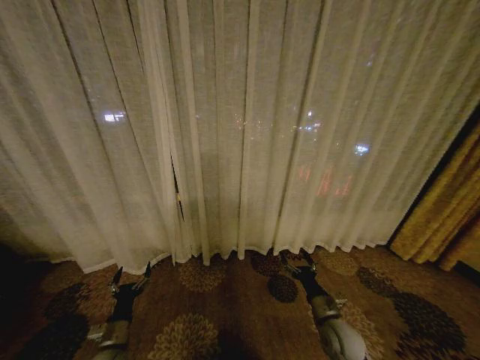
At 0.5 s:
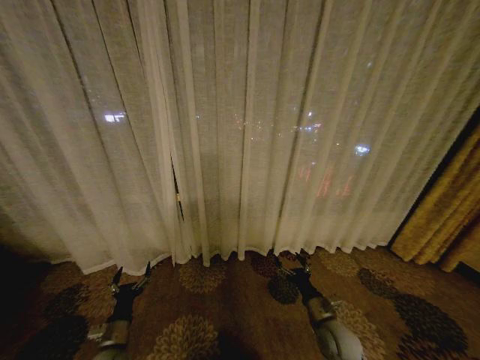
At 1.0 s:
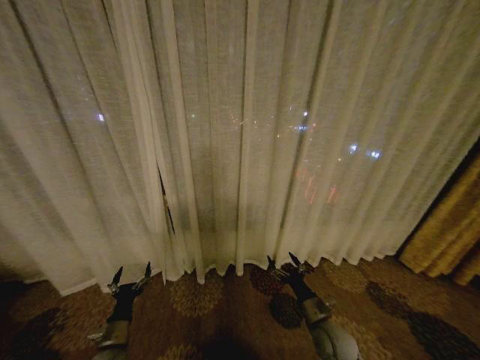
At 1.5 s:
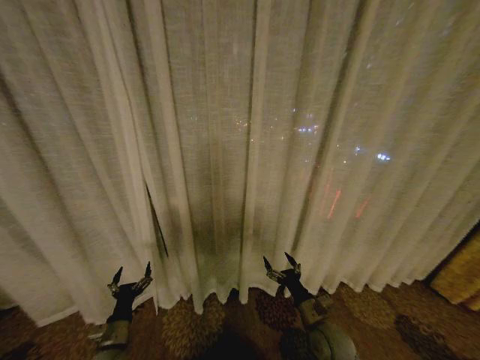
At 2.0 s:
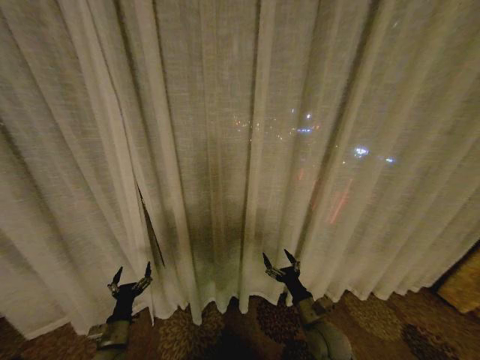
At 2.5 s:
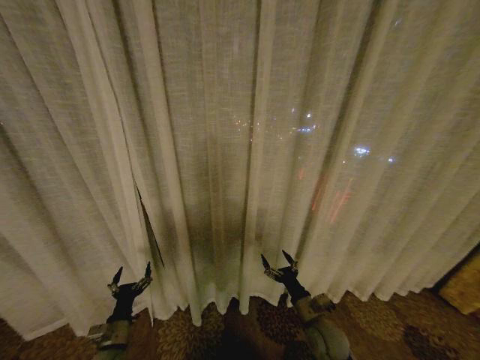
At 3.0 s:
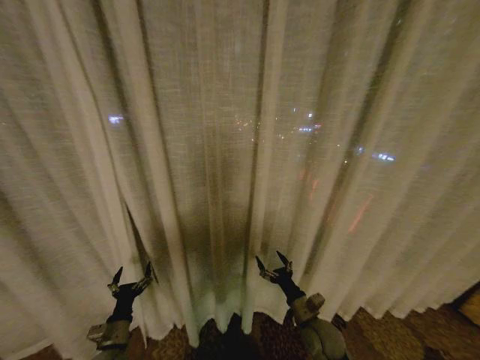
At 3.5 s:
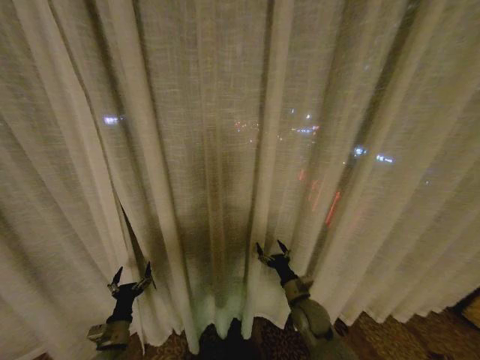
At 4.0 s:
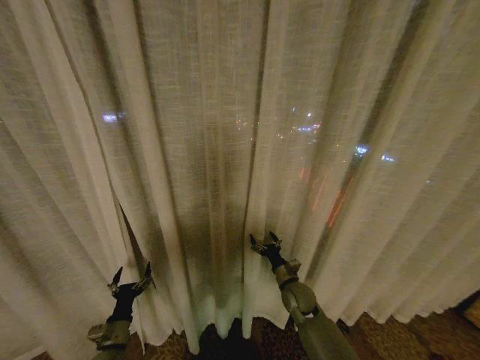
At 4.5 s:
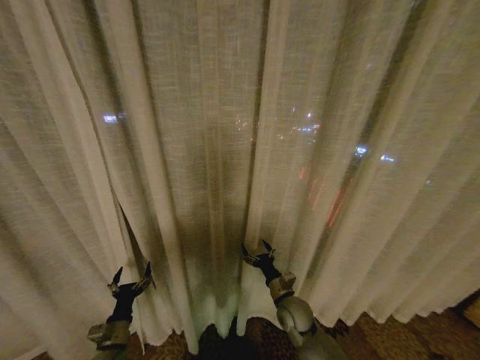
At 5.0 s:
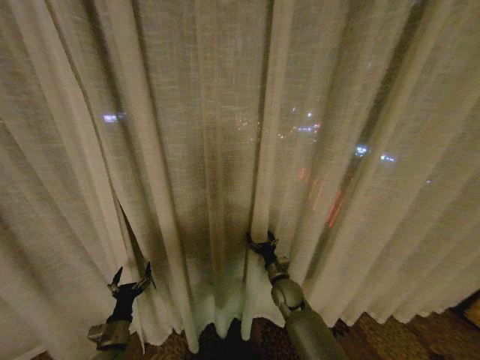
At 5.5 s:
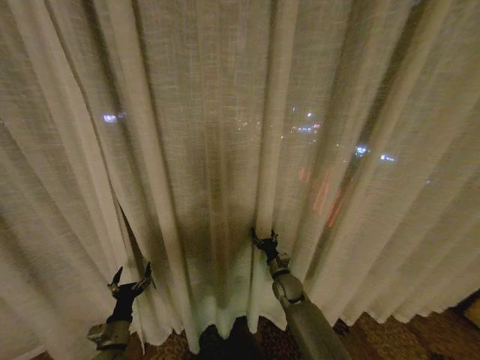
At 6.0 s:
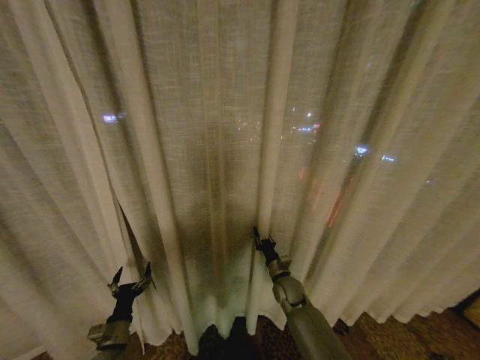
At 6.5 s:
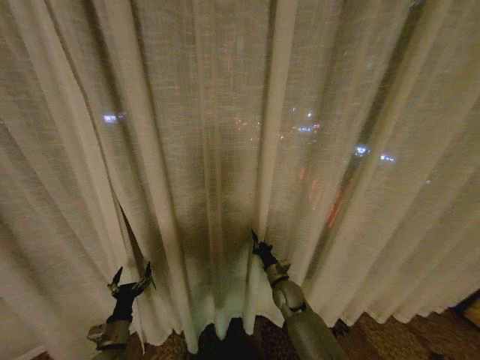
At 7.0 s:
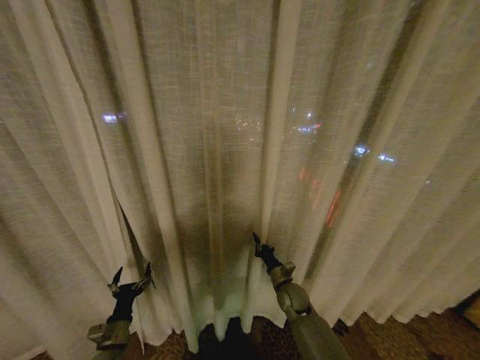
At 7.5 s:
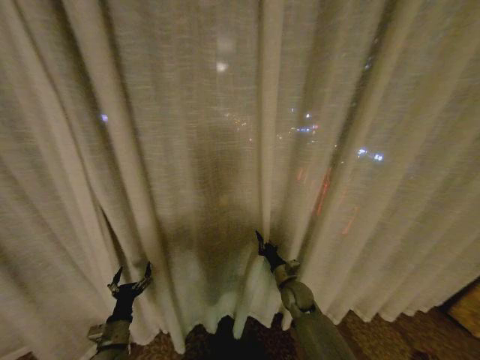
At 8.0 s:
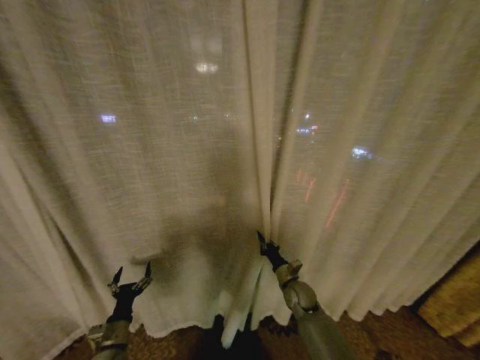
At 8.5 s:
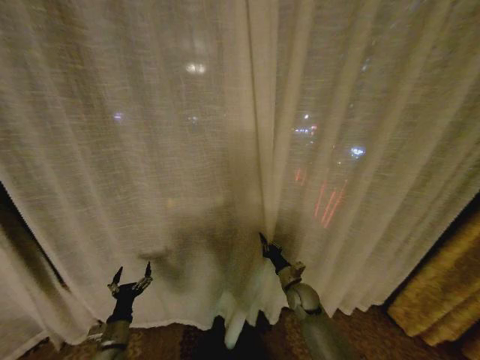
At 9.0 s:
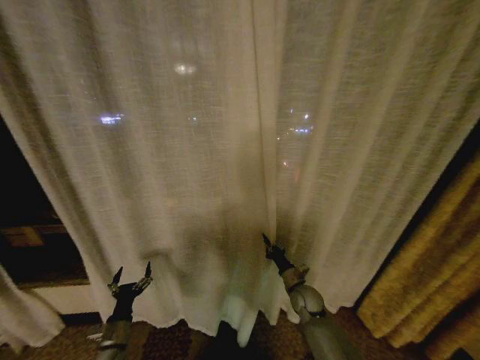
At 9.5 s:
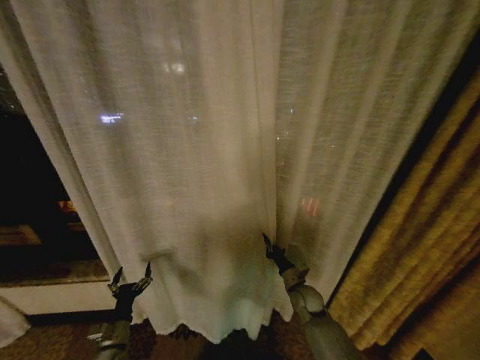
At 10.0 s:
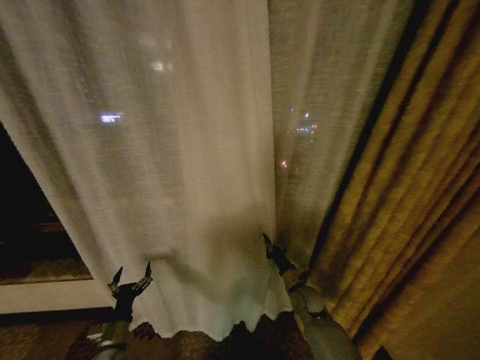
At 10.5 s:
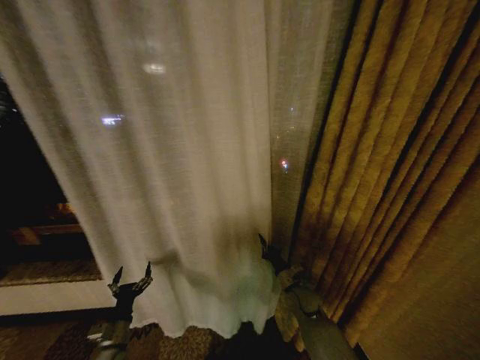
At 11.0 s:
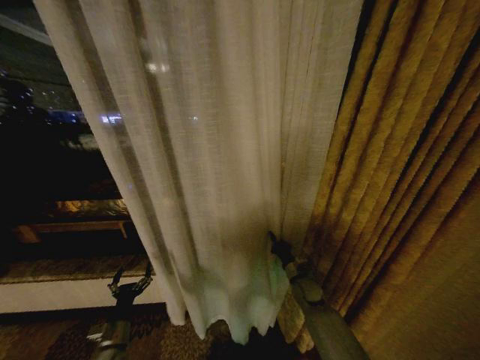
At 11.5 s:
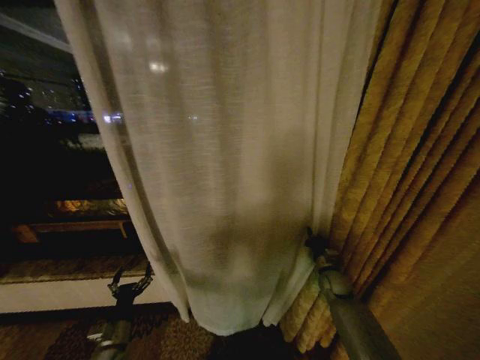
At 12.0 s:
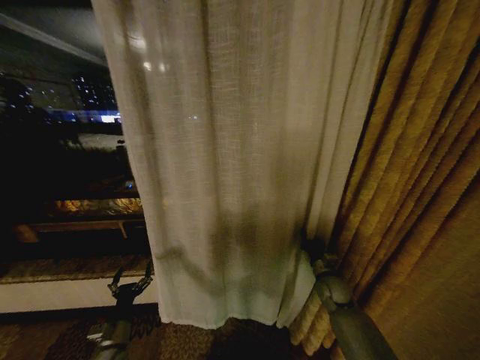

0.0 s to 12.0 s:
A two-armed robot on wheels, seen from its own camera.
Task of the whole recording: Open the curtains by pulling them apart, changing their state from closed to fully open.
2.0 to 4.0 s: The right gripper moves forward, about 10 cm.
4.0 to 6.0 s: The right gripper goes backward and returns, about 5 cm each way, and closes its fingers.
10.0 to 12.0 s: The right gripper shifts approximately 10 cm to the right.

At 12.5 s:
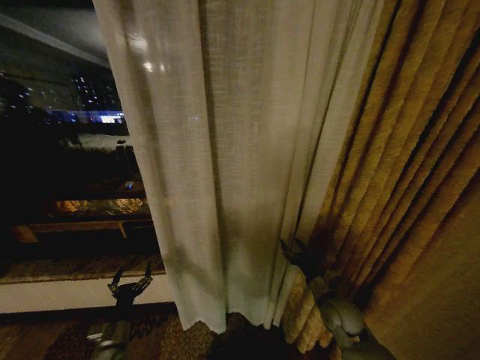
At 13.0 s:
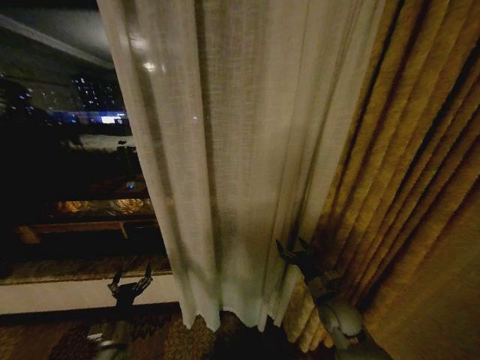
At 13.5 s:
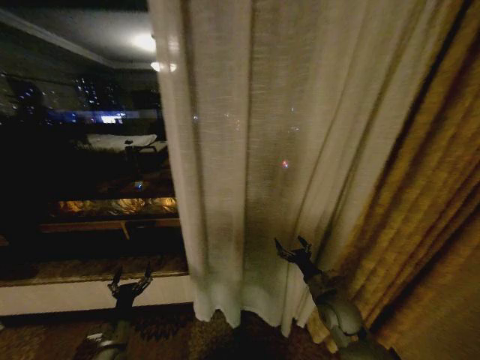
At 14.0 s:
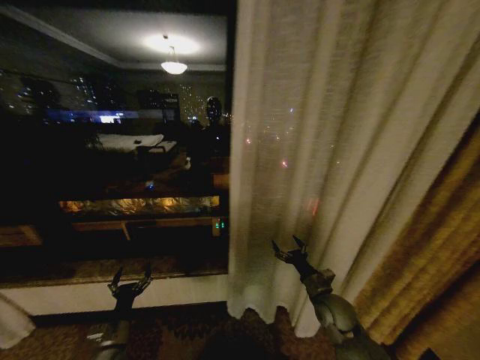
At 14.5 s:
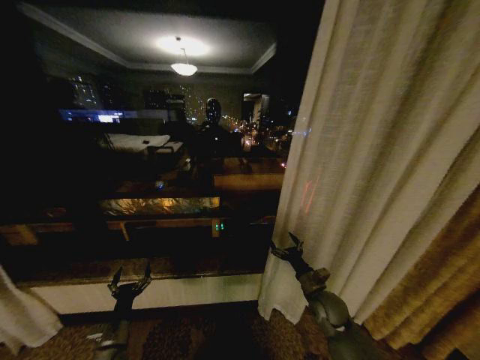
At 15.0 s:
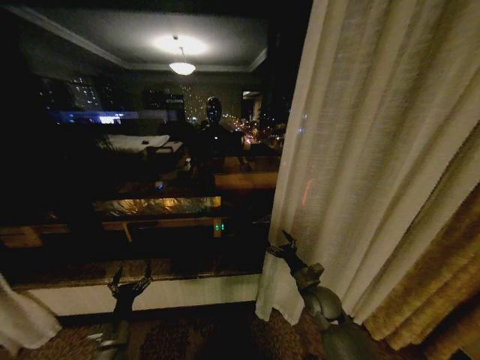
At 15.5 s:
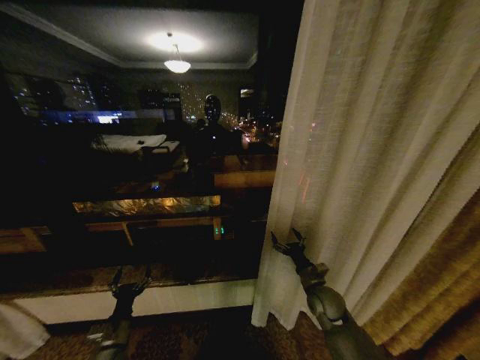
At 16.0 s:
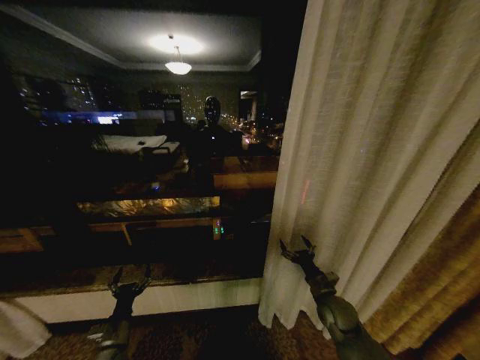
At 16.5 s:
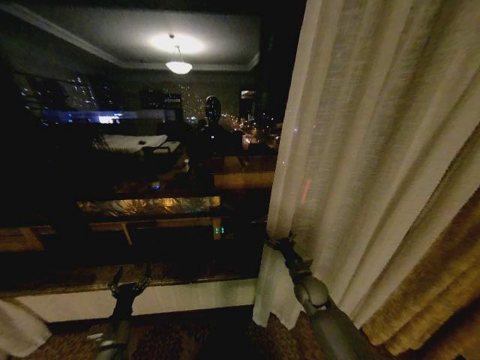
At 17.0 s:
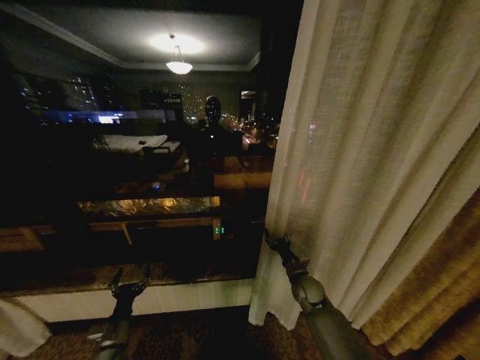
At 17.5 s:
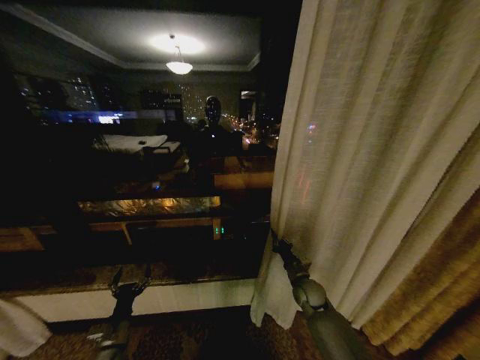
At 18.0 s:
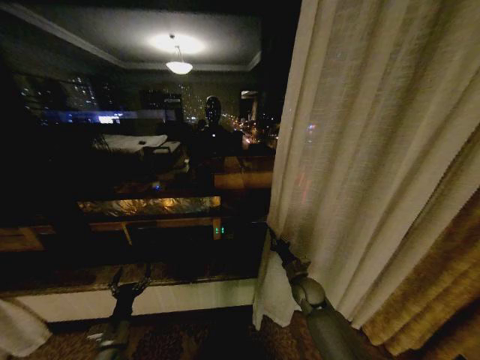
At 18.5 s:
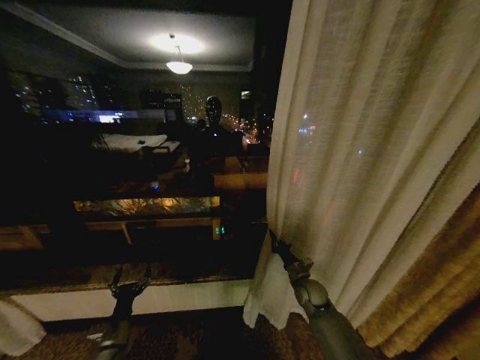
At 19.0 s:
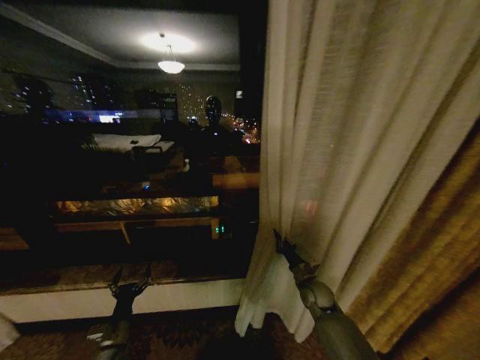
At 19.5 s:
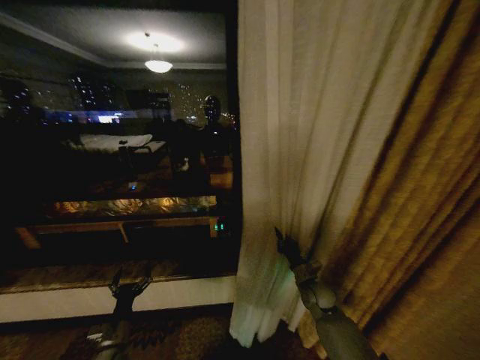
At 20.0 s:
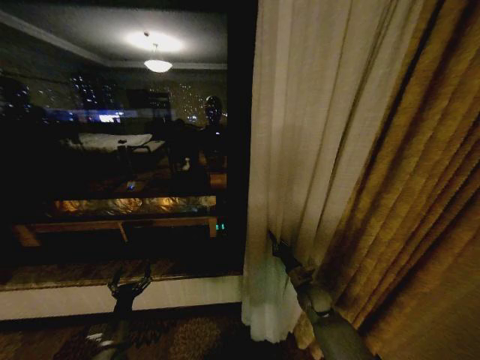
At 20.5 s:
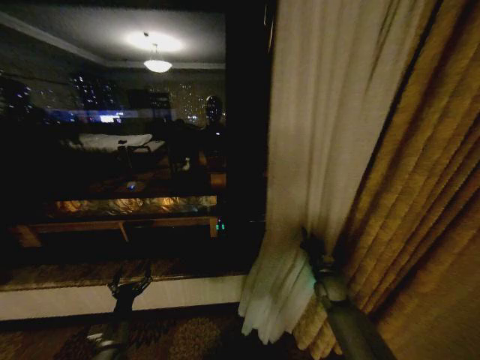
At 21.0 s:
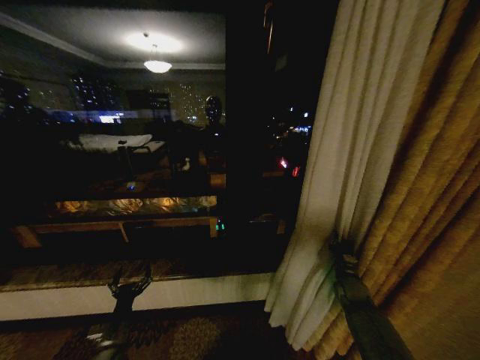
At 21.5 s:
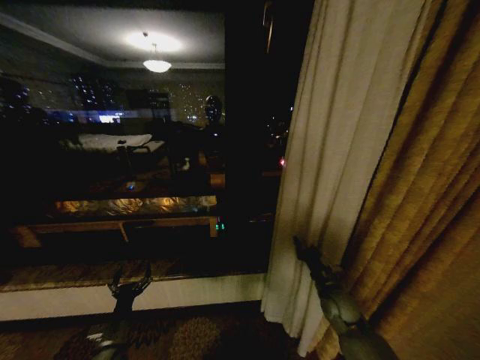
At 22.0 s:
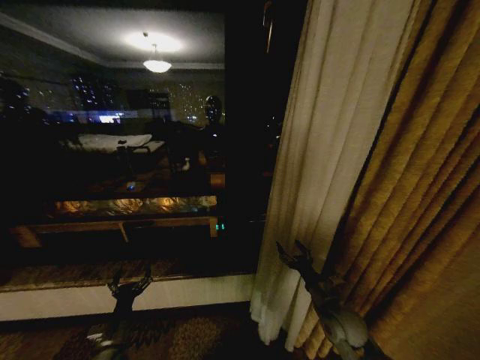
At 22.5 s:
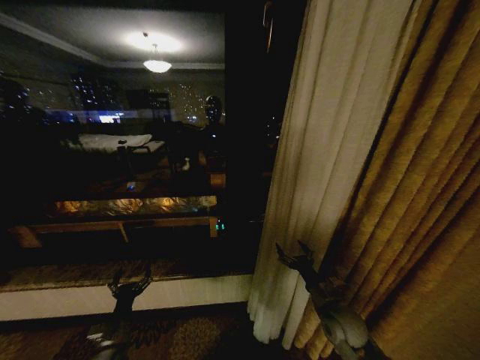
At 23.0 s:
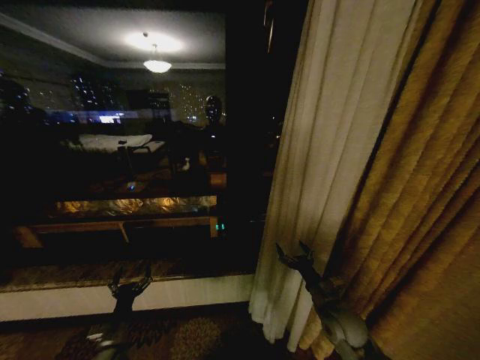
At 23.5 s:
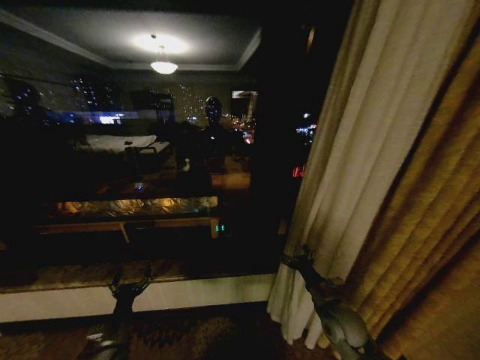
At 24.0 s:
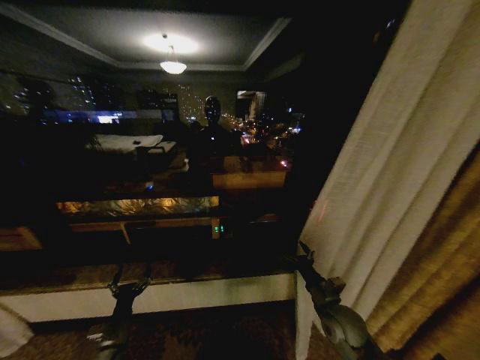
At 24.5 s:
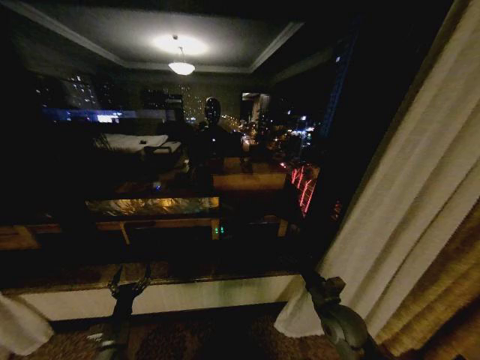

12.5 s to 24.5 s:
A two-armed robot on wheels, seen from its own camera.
Task of the whole recording: Open the curtains by pulling them apart, changing their state from closed to fully open.
14.5 to 16.5 s: The right gripper heads forward, covering roughly 5 cm.
16.5 to 18.5 s: The right gripper closes up.
18.5 to 20.5 s: The right gripper goes some 10 cm to the right.
20.5 to 22.5 s: The right gripper shifts some 15 cm backward, to the left and upward, and opens its fingers.

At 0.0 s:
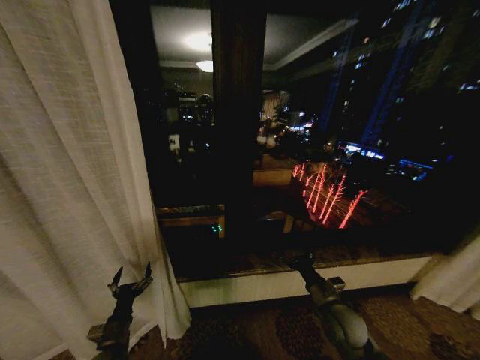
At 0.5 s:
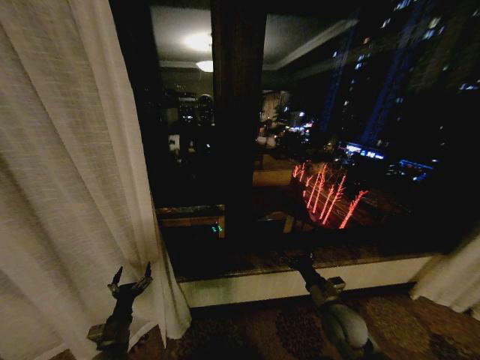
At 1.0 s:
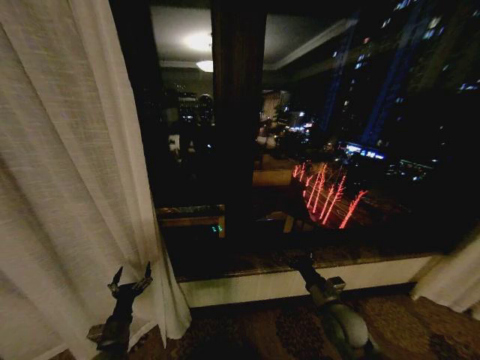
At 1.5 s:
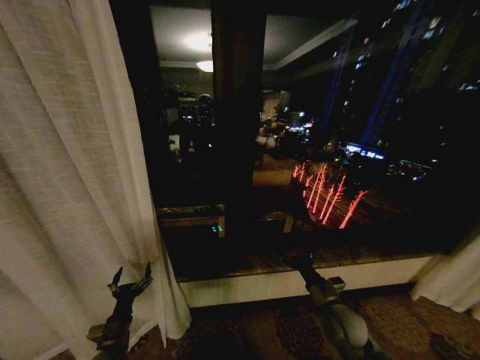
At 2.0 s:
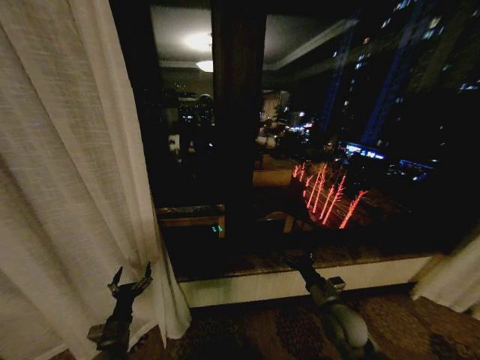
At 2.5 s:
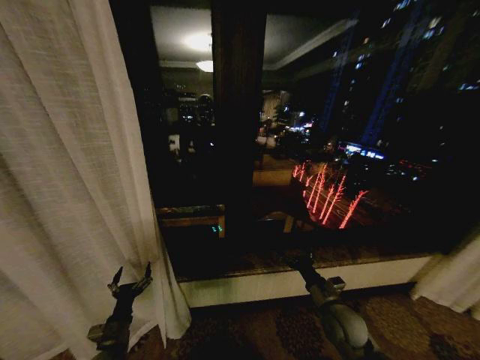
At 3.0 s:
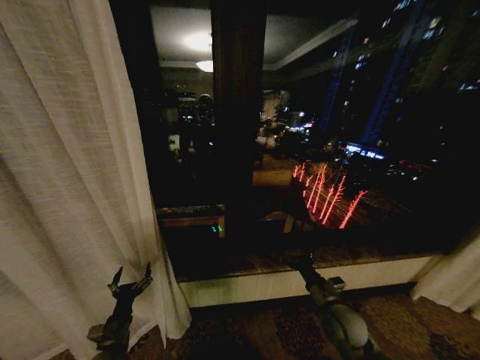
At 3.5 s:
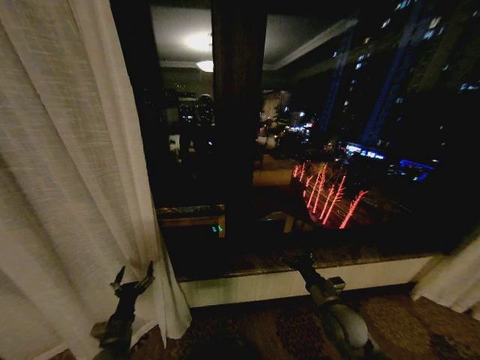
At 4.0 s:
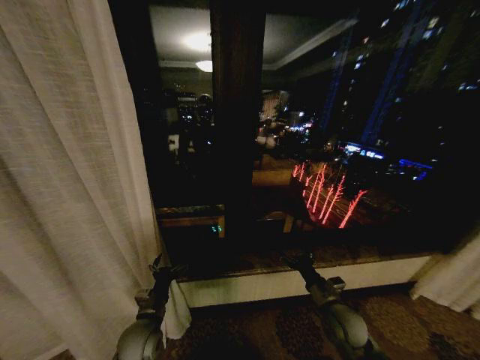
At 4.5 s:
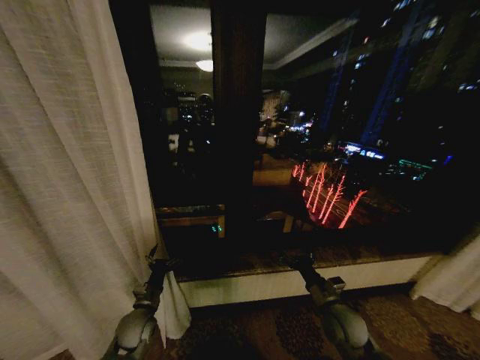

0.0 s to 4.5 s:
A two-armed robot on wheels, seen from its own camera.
Task of the whole recording: Open the curtains by pulling them apart, changing their state from closed to fully open.
0.0 to 2.0 s: Both grippers stay about where they are.
2.0 to 4.5 s: The left gripper is displaced forward and to the right by about 10 cm.
